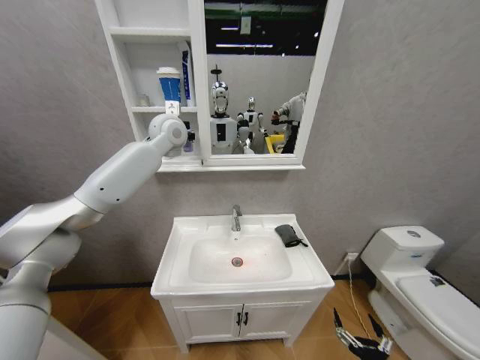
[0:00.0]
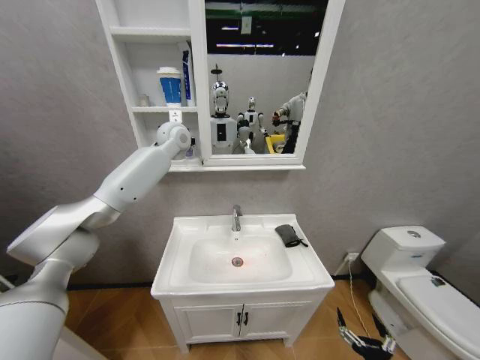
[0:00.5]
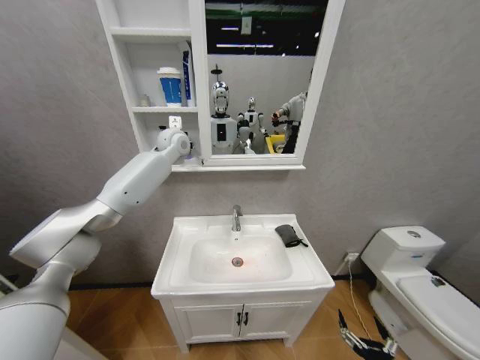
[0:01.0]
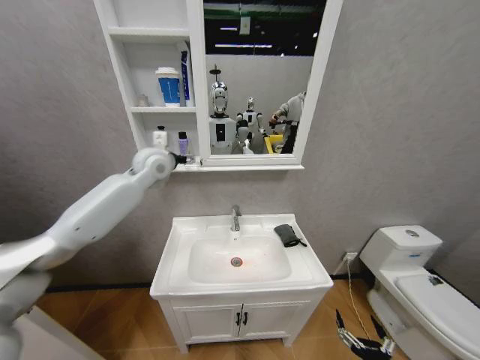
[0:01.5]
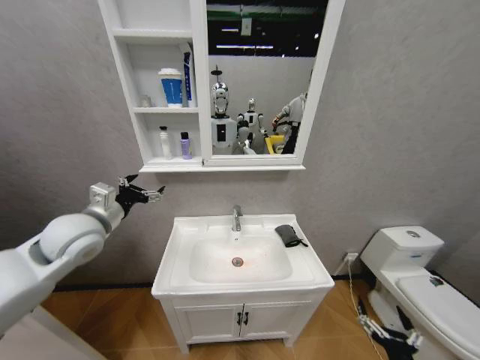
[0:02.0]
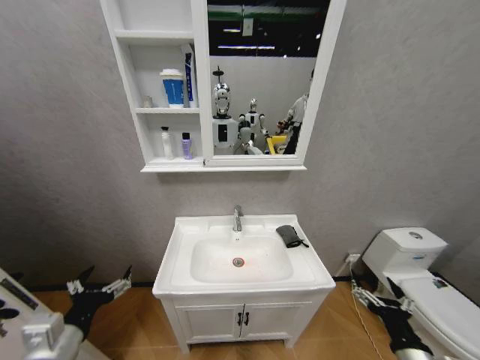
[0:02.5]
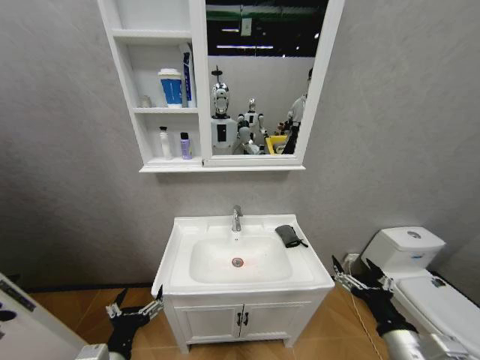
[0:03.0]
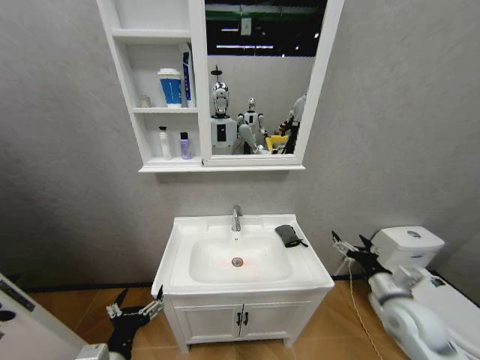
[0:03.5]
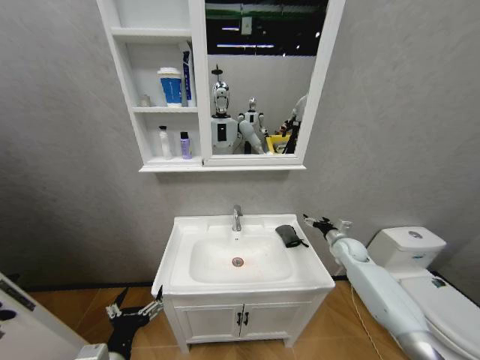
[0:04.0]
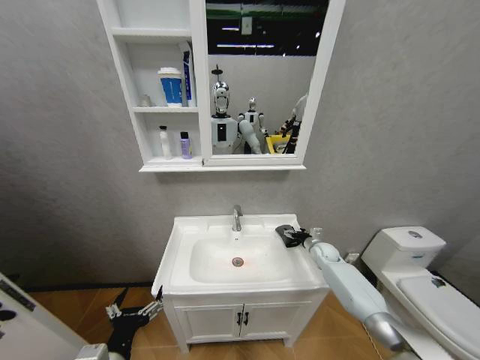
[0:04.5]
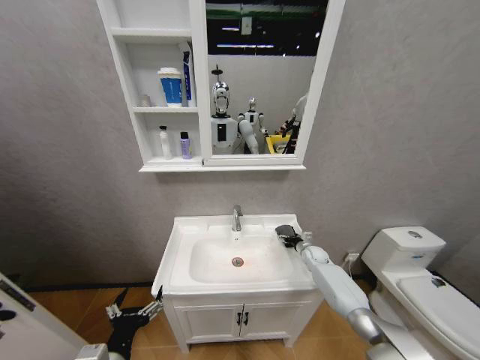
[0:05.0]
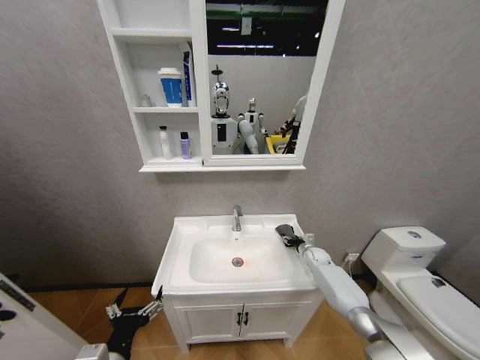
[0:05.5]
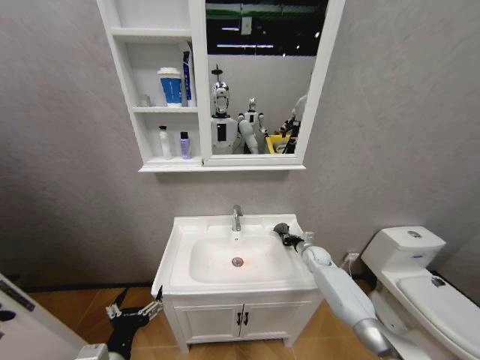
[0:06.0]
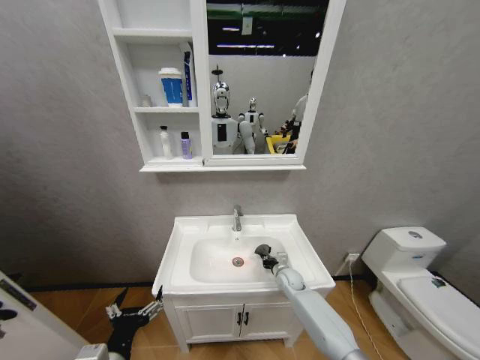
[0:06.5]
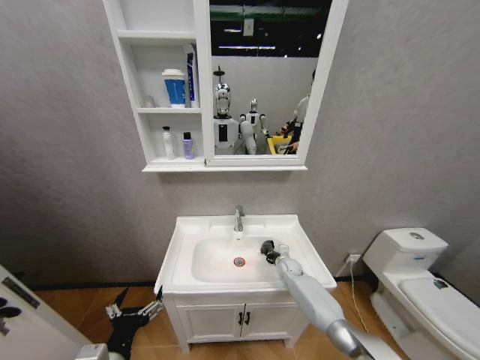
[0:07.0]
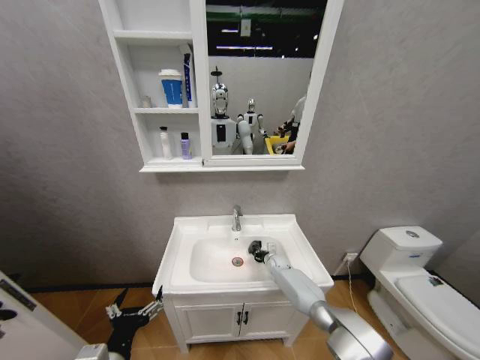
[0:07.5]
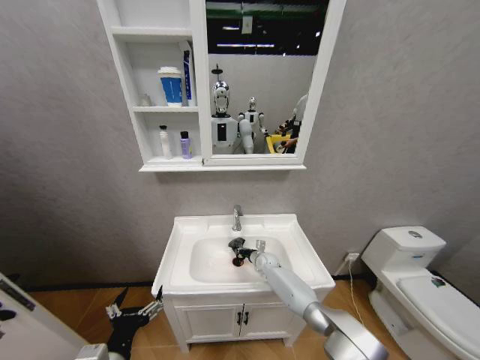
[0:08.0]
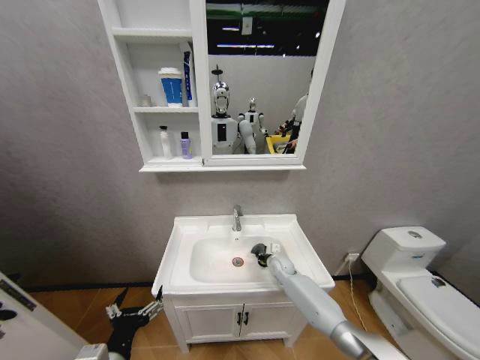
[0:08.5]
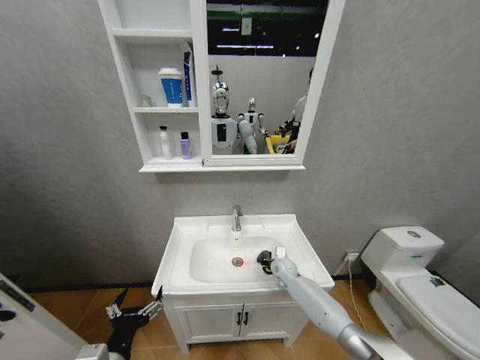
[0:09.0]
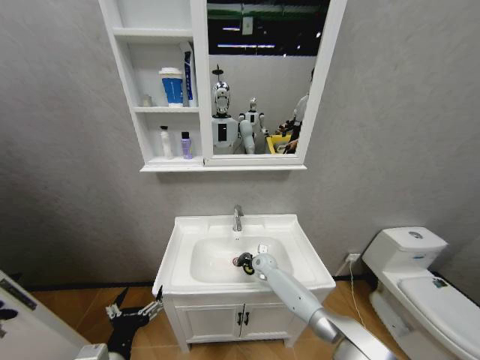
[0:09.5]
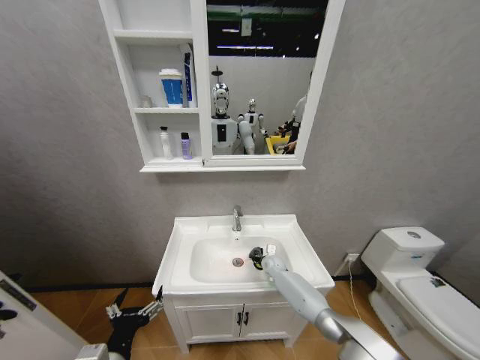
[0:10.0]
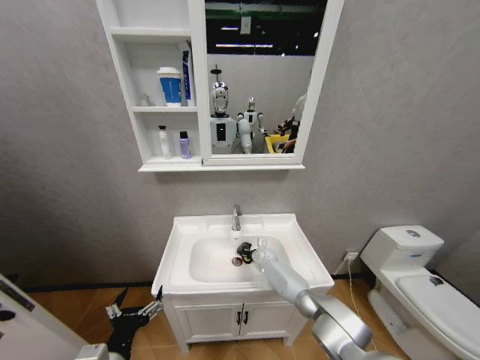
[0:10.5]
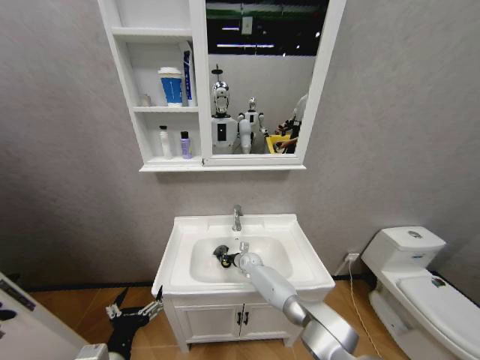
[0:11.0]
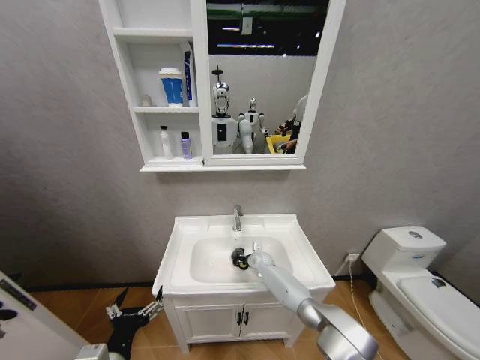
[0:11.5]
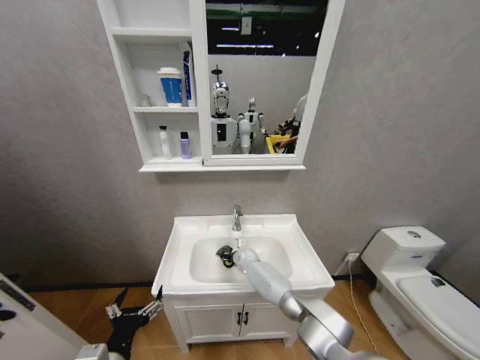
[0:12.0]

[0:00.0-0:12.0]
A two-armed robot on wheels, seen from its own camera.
Task of the whole recording: Move facial cleanser and shampoo from washbasin to cabinet, then wipe washbasin with towel.
0:00.0 to 0:02.0: The left gripper heads backward, downward and to the left, covering approximately 35 cm, and opens up. Meanwhile the right gripper moves approximately 5 cm.
0:02.0 to 0:04.0: The right gripper goes roughly 40 cm forward. Meanwhile the left gripper is displaced backward and downward by approximately 30 cm.
0:04.0 to 0:06.0: The right gripper goes about 10 cm downward and to the left, and closes its fingers.
0:06.0 to 0:08.0: The right gripper is displaced to the left by approximately 20 cm.
0:08.0 to 0:10.0: The right gripper moves left and right over approximately 5 cm, changing direction 2 times.
0:10.0 to 0:12.0: The right gripper swings left and right, about 10 cm each way, with 2 reversals.

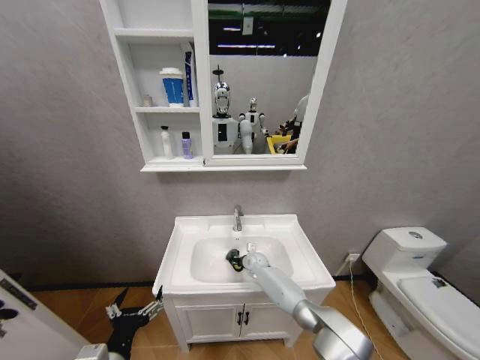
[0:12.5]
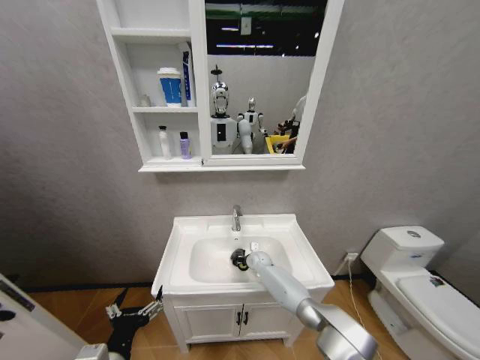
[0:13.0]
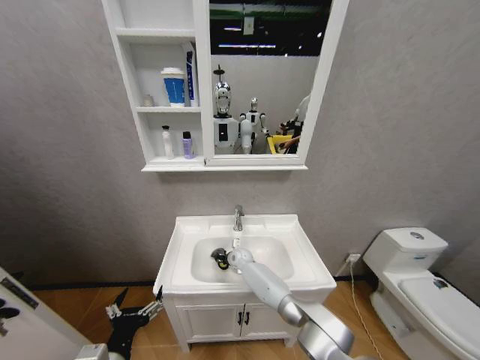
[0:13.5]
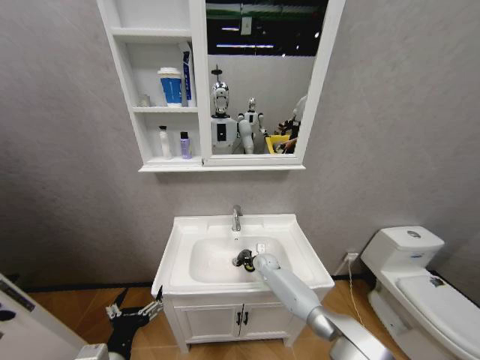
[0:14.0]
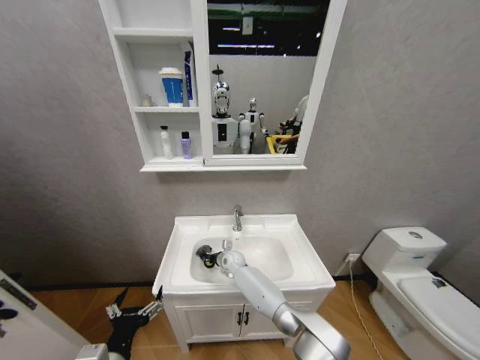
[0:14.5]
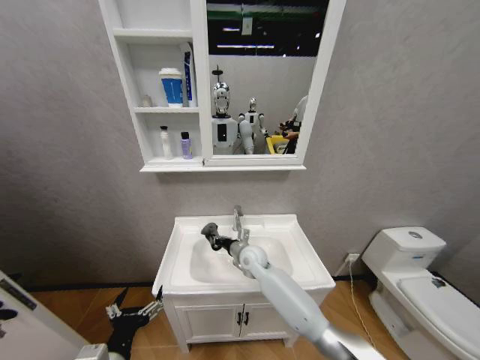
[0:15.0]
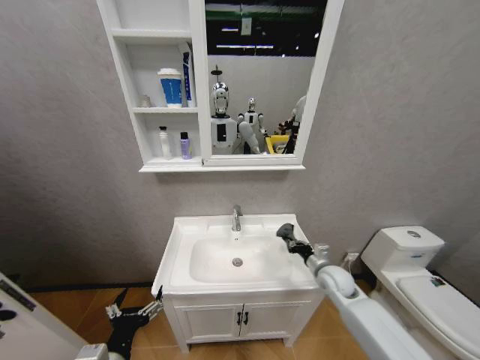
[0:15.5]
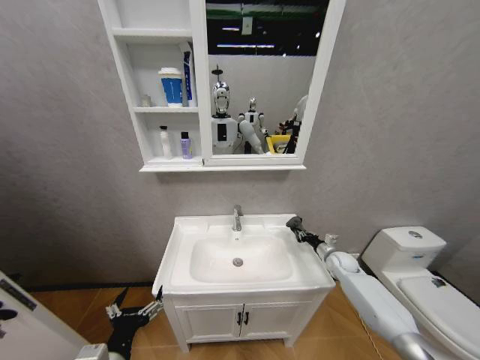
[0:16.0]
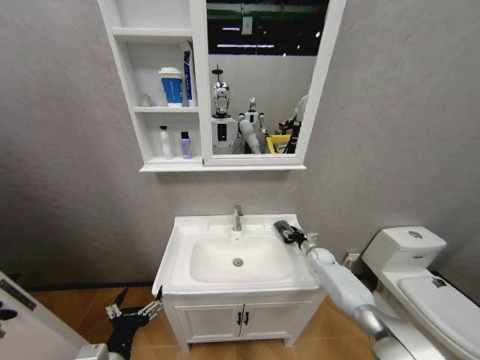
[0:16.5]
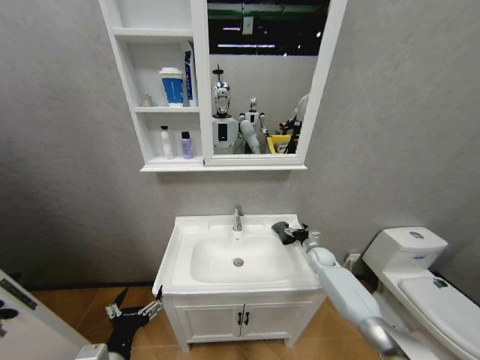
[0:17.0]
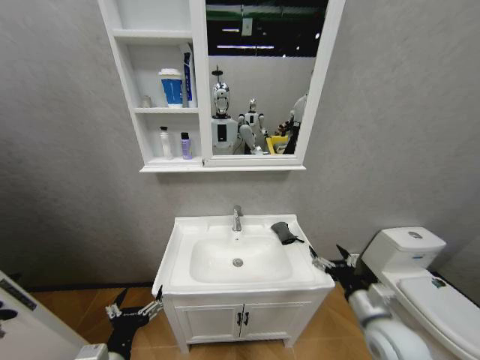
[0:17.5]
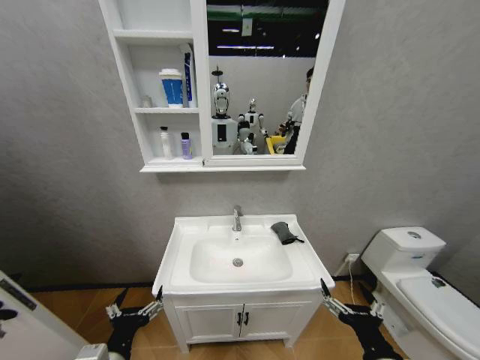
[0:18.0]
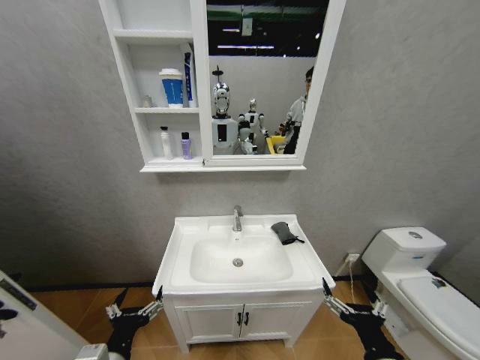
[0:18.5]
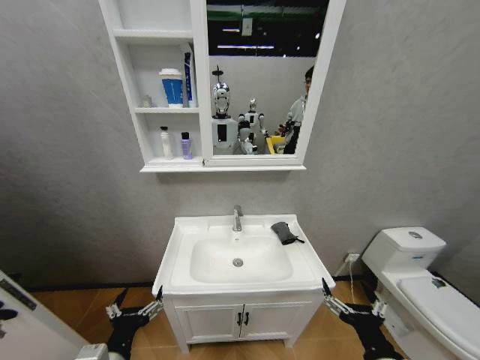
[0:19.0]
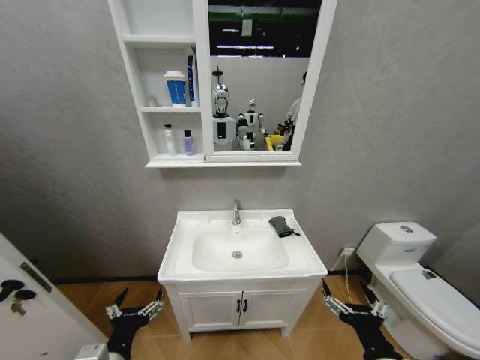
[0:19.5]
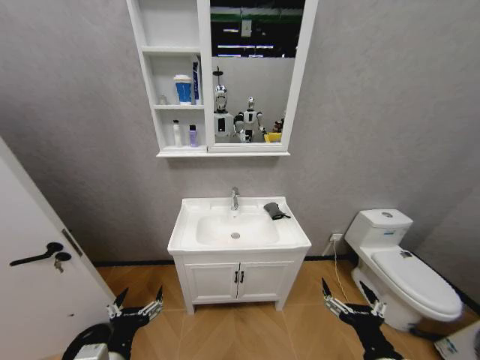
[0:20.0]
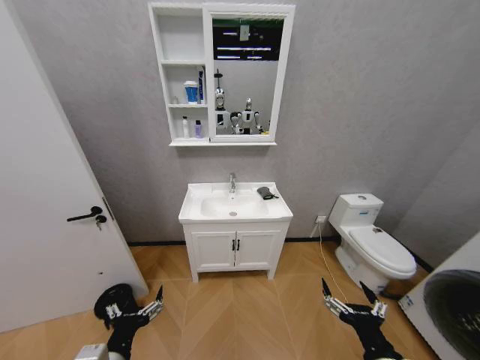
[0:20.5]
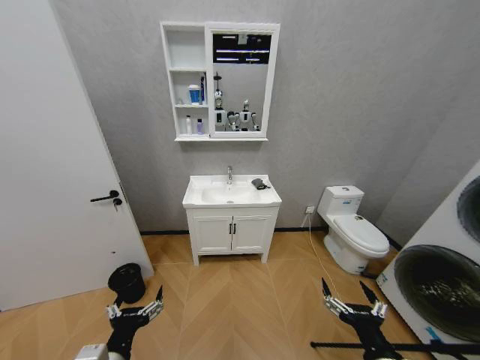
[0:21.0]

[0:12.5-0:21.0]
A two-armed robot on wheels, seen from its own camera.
Task of the whole recording: Move facial cleanser and shampoo from washbasin to cabinet, then wipe washbasin with towel.
0:12.5 to 0:14.5: The right gripper goes left and right, about 15 cm each way, reversing 2 times.
0:14.5 to 0:16.5: The right gripper shifts about 40 cm to the right, and opens.
0:16.5 to 0:19.0: The right gripper heads backward, covering roughly 40 cm, and opens its fingers.

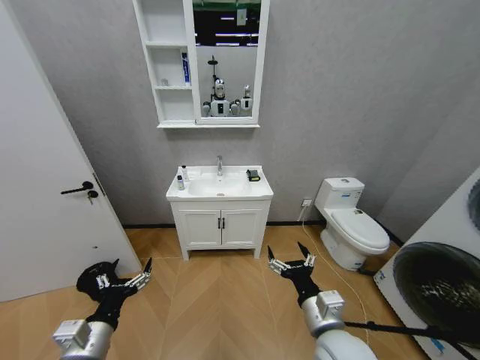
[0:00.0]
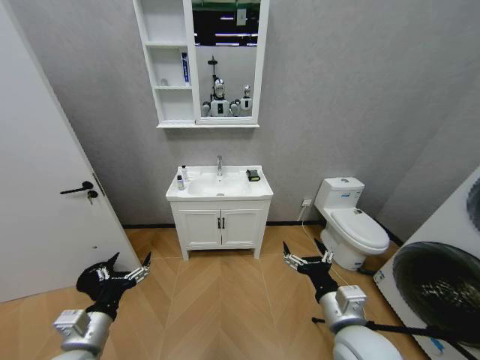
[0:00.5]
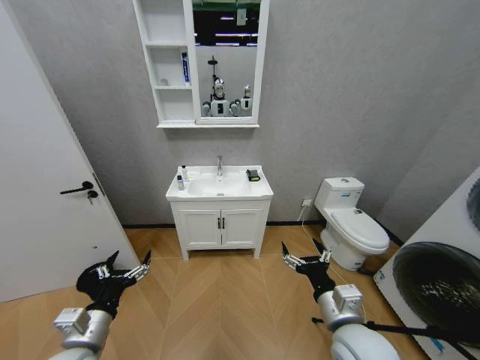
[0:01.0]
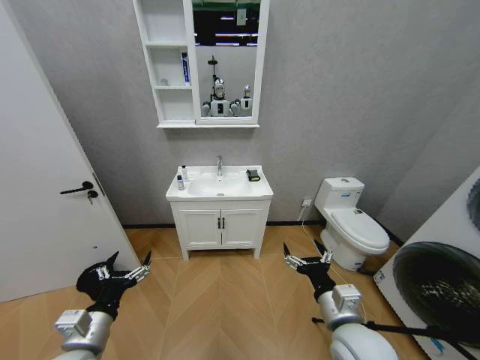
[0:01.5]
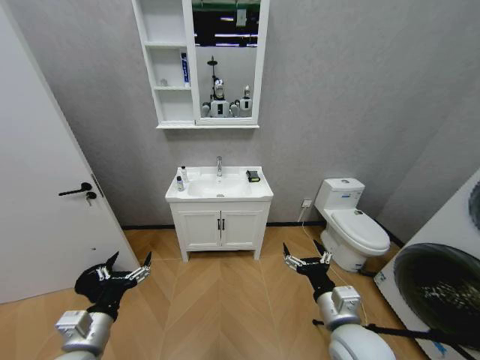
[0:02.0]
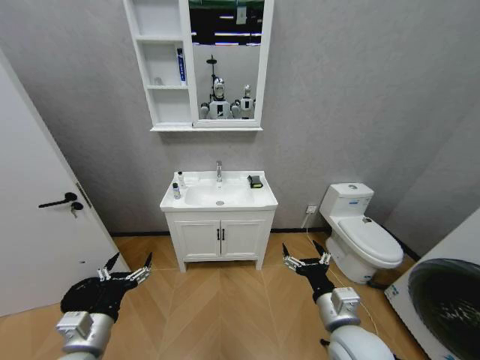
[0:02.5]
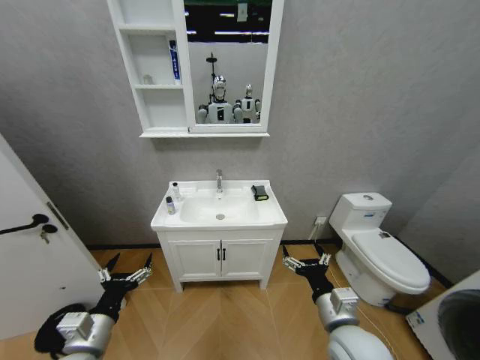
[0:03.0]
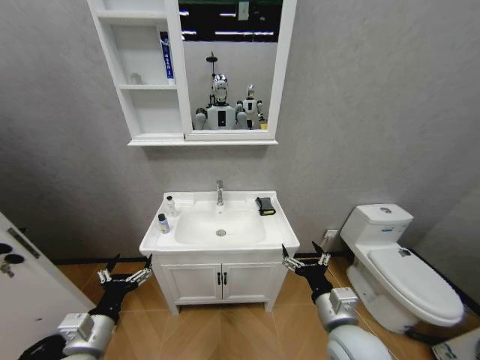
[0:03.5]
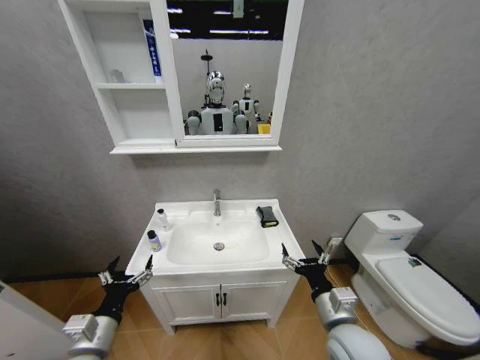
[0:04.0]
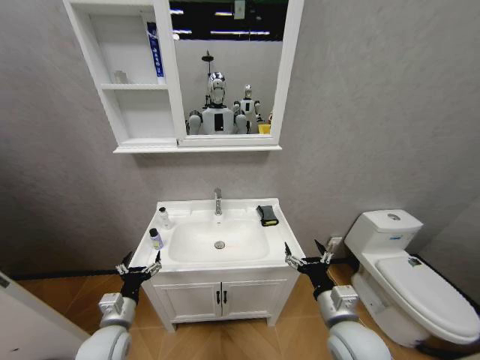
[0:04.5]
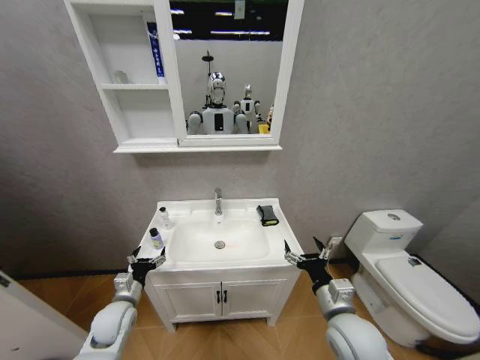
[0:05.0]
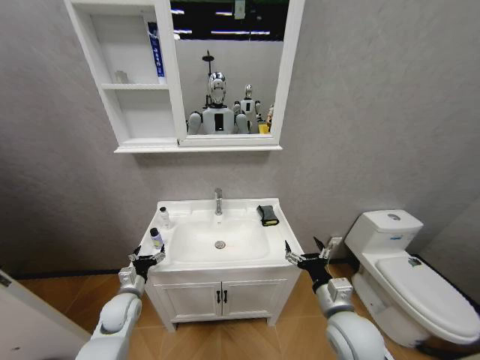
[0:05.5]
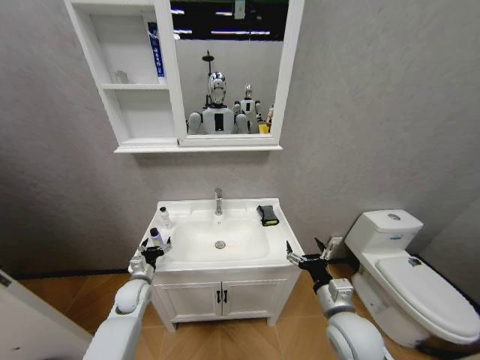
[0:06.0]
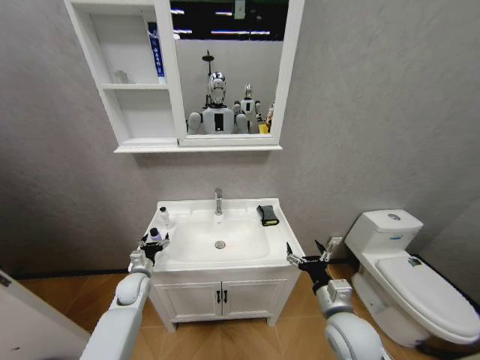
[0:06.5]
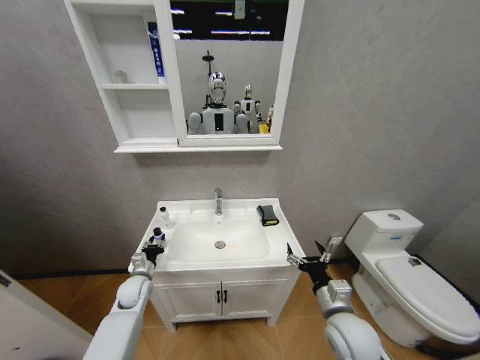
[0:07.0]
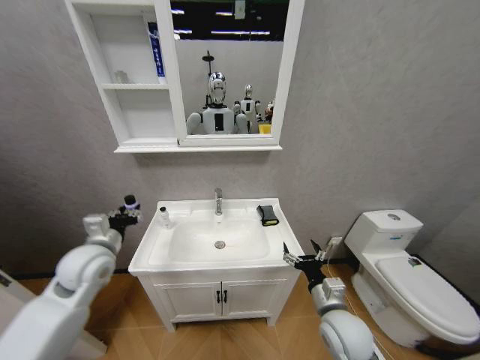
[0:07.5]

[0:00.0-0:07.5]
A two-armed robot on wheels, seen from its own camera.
Task of the whole recording: Move facial cleanser and shampoo from washbasin to cabinet, then wipe washbasin with towel.
0:04.0 to 0:05.5: The left gripper travels forward and downward by approximately 20 cm.
0:05.5 to 0:07.5: The left gripper heads upward, covering some 20 cm, and closes its fingers.
